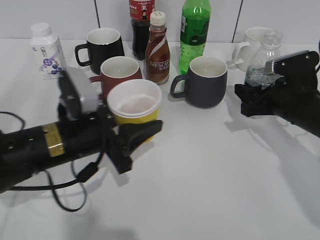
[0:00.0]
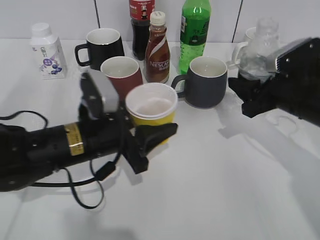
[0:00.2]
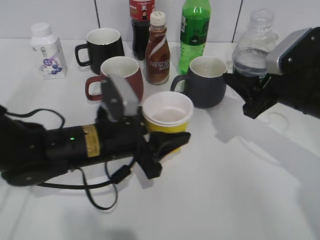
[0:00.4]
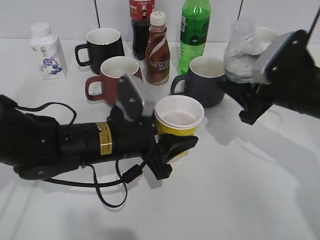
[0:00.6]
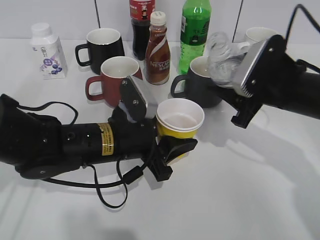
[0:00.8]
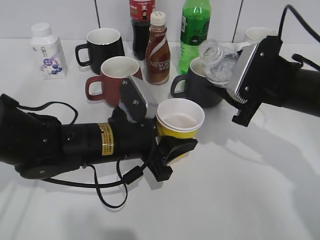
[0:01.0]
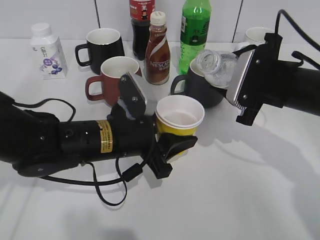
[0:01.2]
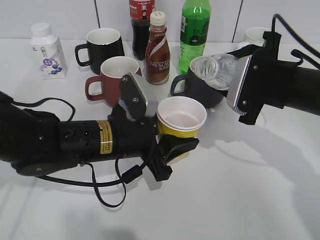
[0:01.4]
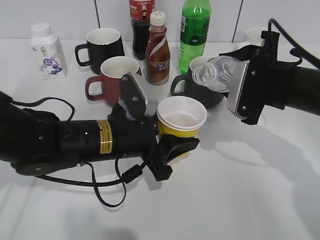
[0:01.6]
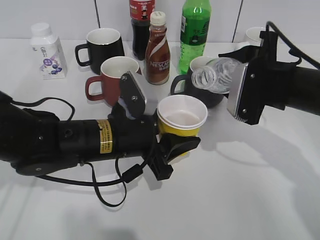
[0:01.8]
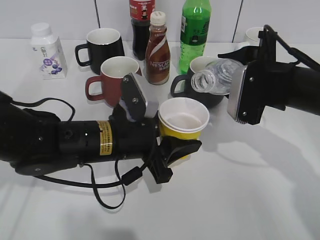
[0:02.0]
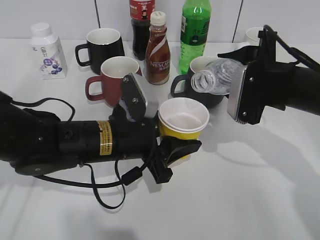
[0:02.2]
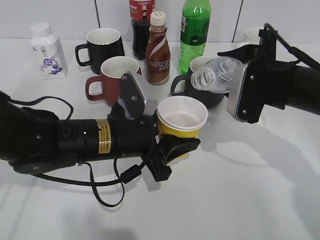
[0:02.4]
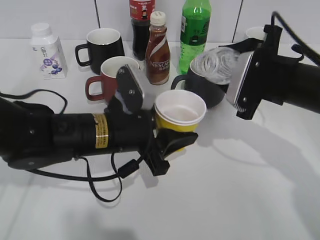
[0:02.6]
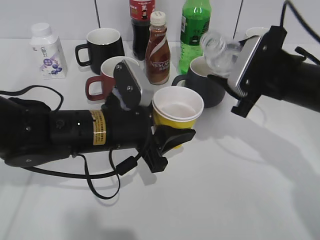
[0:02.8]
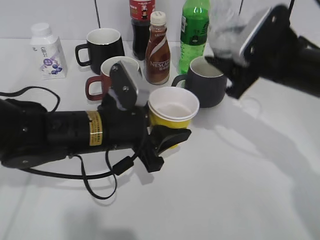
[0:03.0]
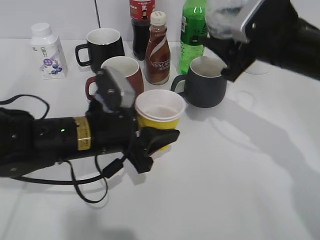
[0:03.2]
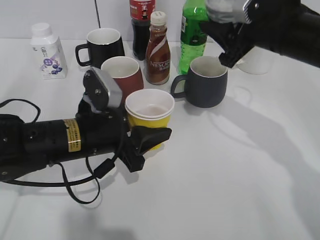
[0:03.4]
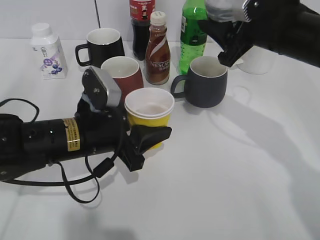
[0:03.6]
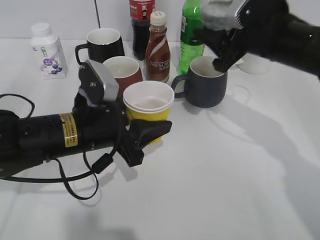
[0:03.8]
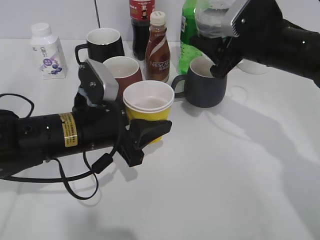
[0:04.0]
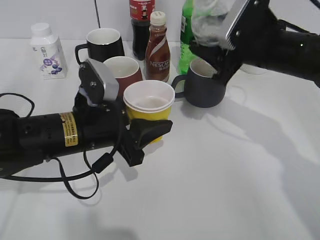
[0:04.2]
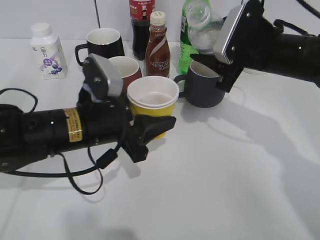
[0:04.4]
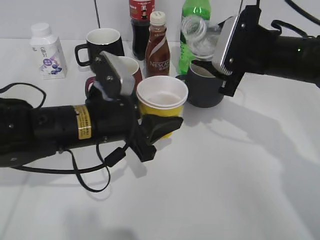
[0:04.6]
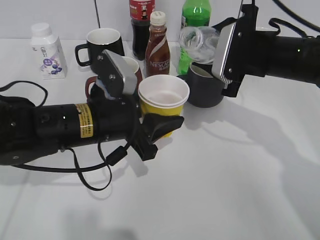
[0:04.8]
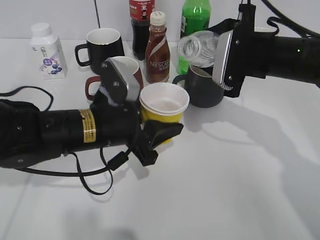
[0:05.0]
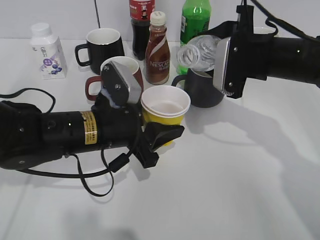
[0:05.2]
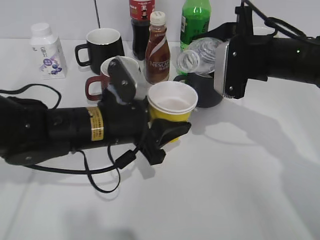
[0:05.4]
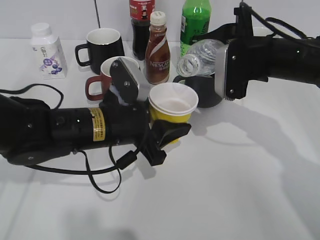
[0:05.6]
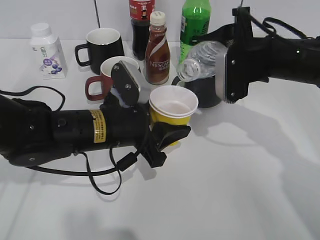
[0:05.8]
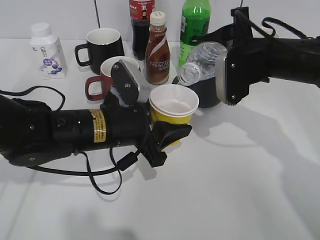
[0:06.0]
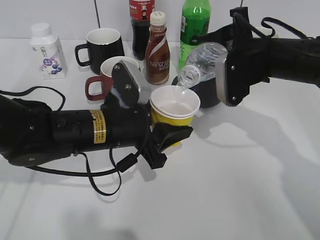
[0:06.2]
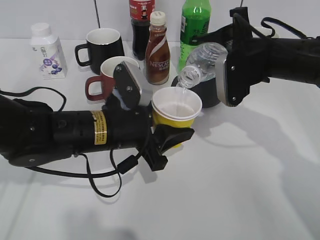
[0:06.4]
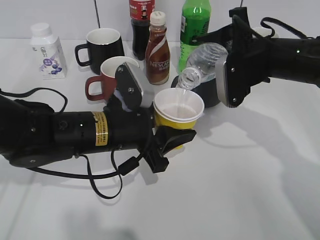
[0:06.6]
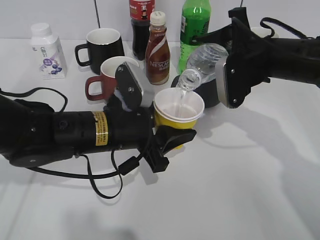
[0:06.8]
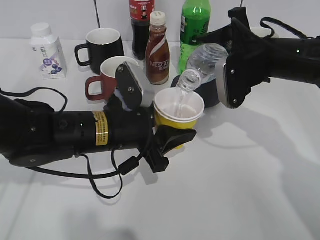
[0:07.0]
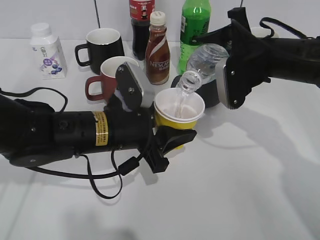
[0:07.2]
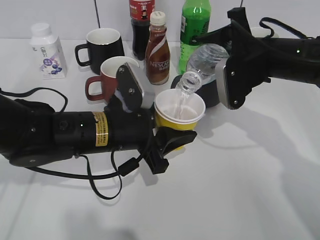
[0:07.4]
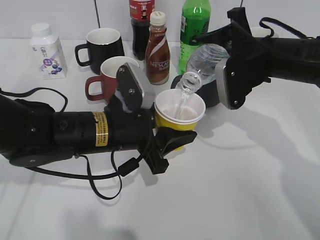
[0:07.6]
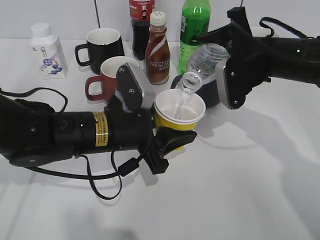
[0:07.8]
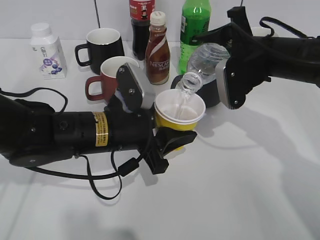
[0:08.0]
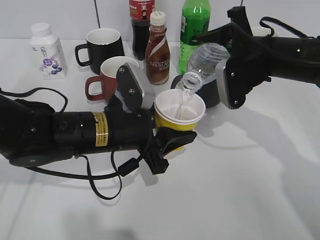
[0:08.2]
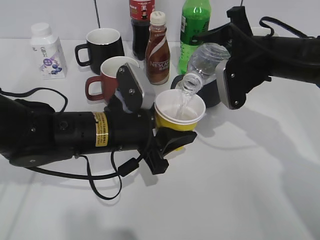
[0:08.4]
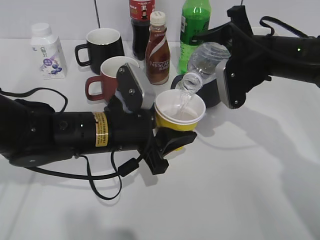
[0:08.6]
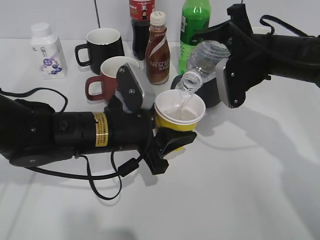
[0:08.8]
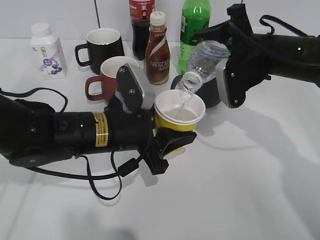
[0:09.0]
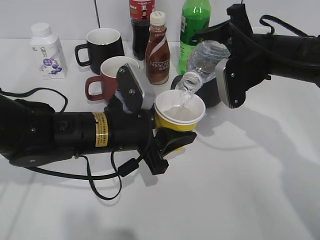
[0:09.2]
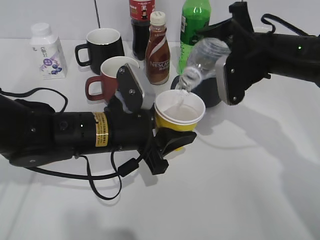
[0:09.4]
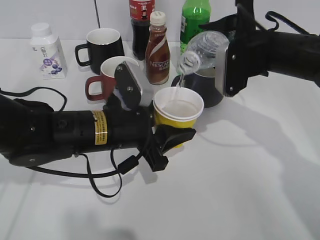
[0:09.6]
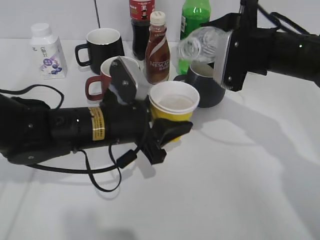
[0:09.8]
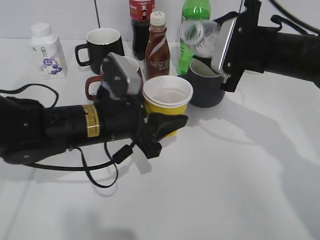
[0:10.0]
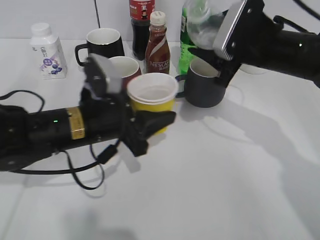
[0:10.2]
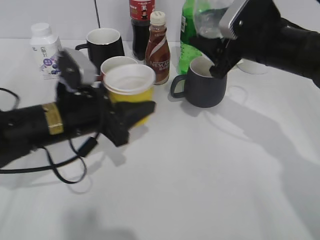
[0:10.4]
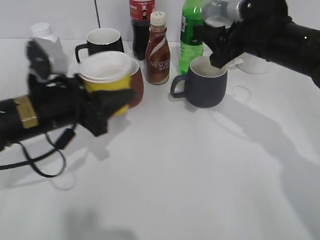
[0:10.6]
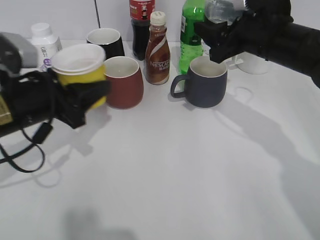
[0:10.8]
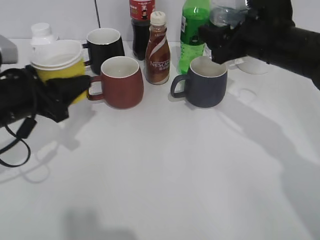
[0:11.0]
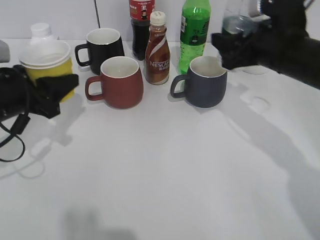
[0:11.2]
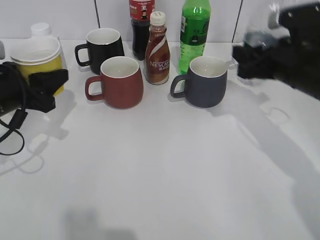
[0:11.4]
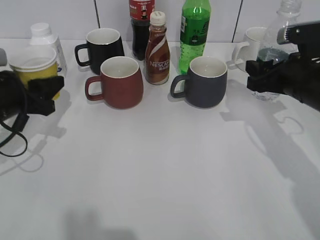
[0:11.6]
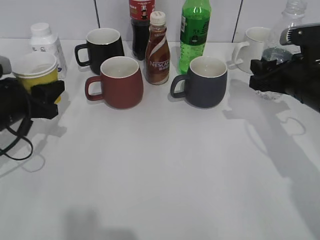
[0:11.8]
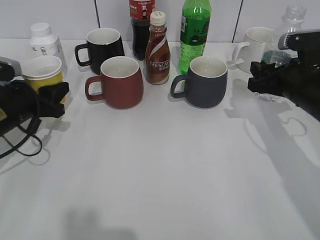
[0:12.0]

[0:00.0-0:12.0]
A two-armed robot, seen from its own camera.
Step, 0:00.0 to 0:10.0: Pour the water from bottle to cup with right gripper.
0:00.0 to 0:01.6: The left gripper moves to the right, roughly 5 cm, while the right gripper is displaced upward by some 5 cm.
0:06.0 to 0:07.6: The grippers move only a little.
0:07.6 to 0:09.0: Neither gripper changes place.
0:09.0 to 0:10.4: The left gripper shifts approximately 5 cm to the left.
0:10.4 to 0:12.0: The right gripper heads to the right and downward, covering roughly 10 cm; the left gripper travels to the left by approximately 10 cm.

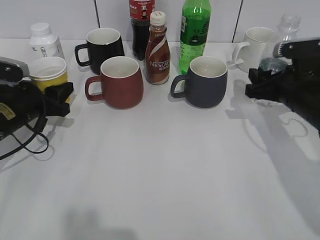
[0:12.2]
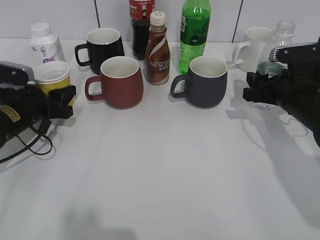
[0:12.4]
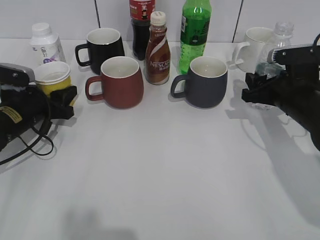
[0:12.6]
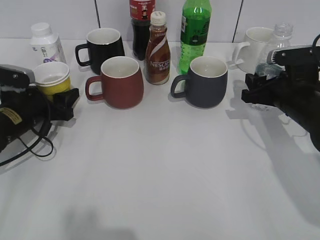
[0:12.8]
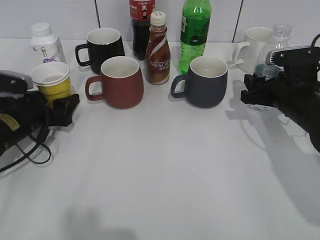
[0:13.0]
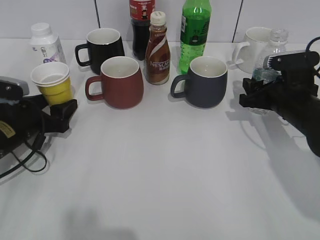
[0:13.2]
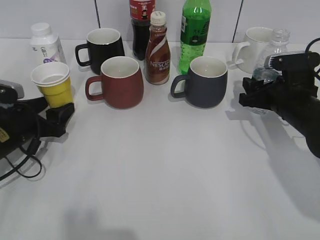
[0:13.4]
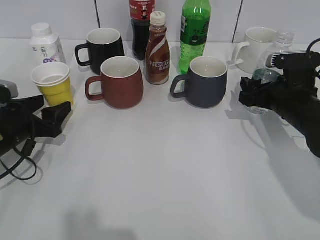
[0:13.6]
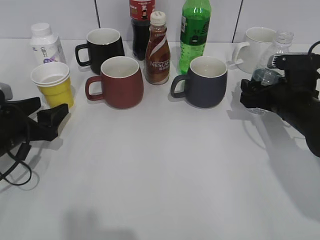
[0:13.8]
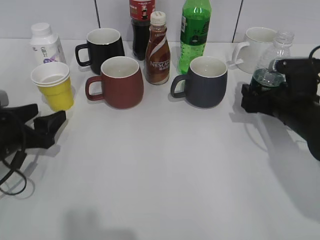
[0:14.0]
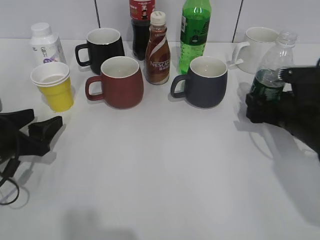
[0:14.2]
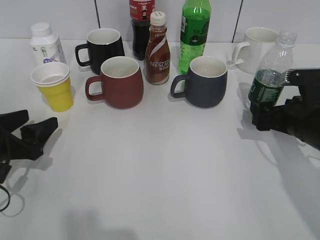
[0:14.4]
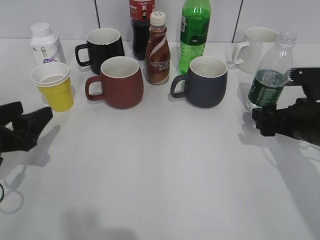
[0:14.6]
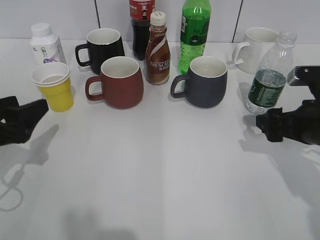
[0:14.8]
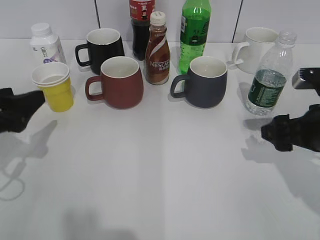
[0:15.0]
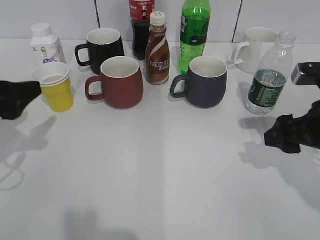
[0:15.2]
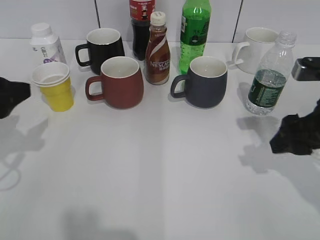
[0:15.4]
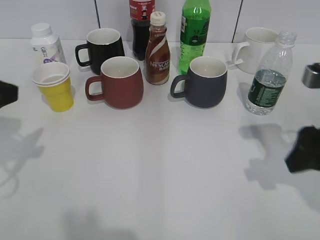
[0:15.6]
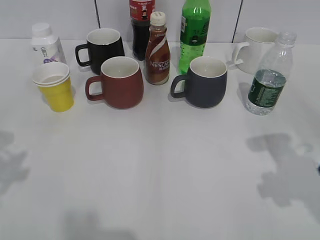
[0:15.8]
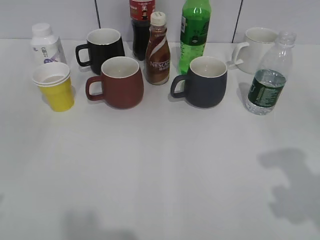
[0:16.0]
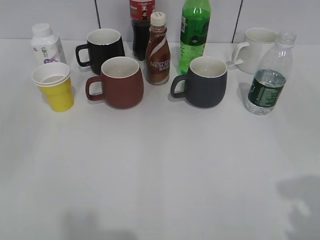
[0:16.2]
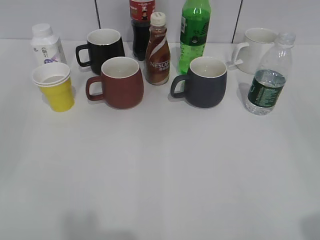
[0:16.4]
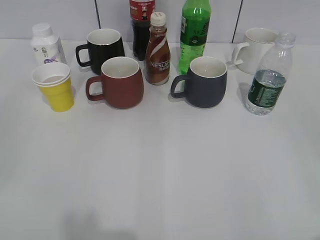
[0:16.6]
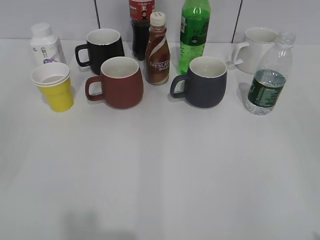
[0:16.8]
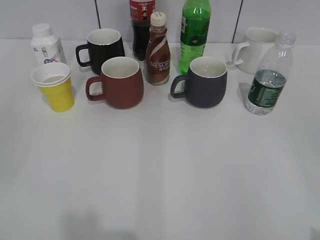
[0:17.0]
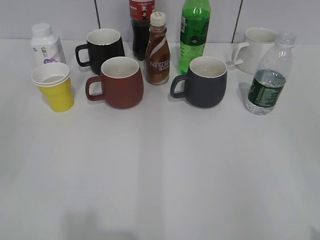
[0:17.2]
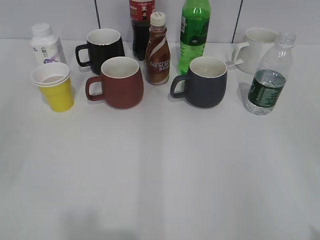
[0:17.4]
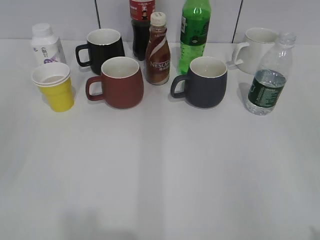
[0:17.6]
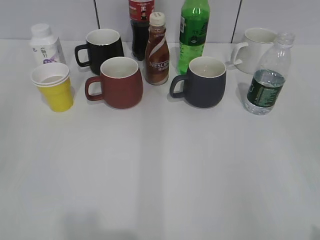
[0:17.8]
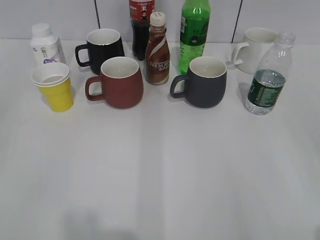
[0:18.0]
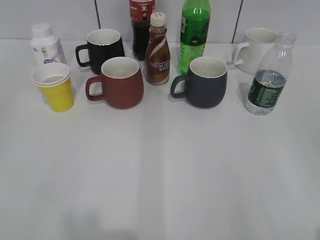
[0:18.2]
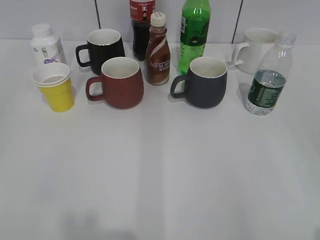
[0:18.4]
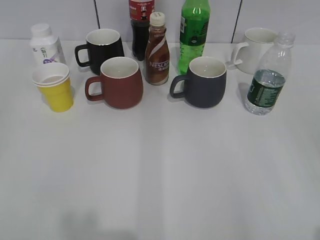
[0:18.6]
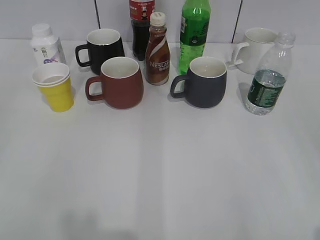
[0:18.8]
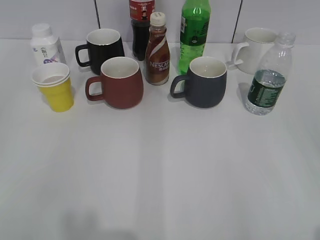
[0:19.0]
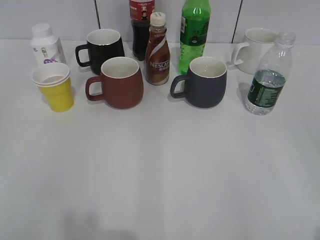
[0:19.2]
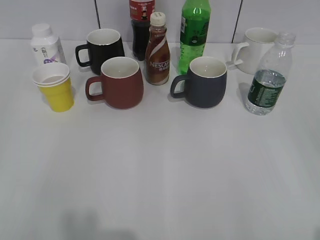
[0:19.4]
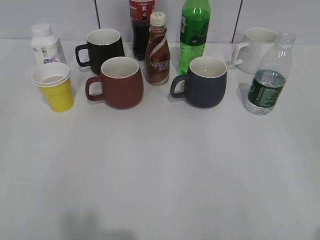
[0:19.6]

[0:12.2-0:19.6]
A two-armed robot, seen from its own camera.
Step, 0:13.0 to 0:14.2: Place the water bottle on the table with right gripper.
0:12.2 to 0:13.6: The left gripper opens up. Meanwhile the right gripper opens.
0:13.6 to 0:15.2: The left gripper heads upward and backward, covering some 10 cm. Meanwhile the right gripper is displaced backward and upward by some 10 cm.
0:15.2 to 0:16.6: The grippers both shift backward and upward by some 25 cm.
0:18.2 to 0:19.6: Both grippers stay put.
